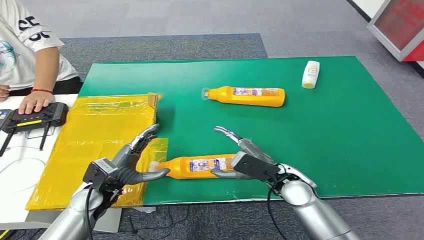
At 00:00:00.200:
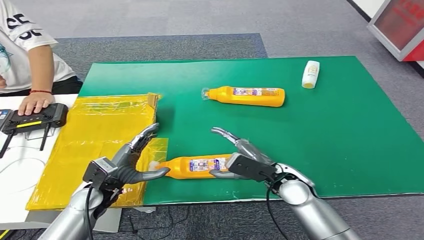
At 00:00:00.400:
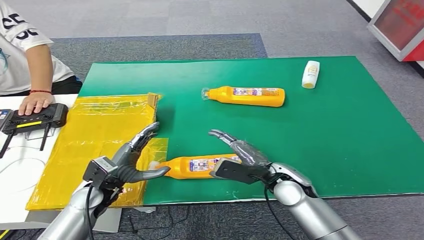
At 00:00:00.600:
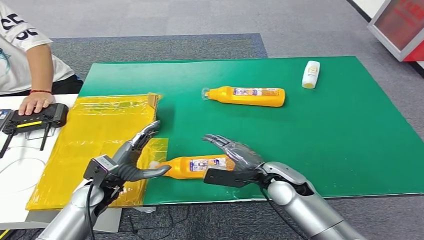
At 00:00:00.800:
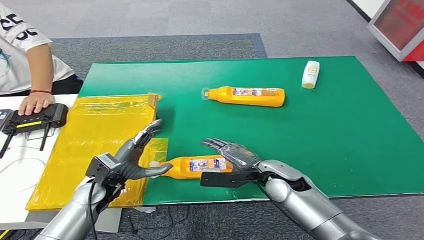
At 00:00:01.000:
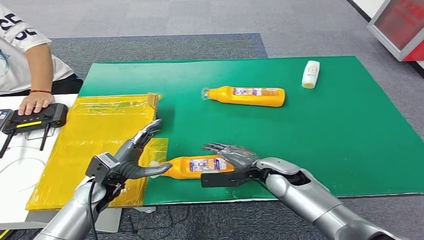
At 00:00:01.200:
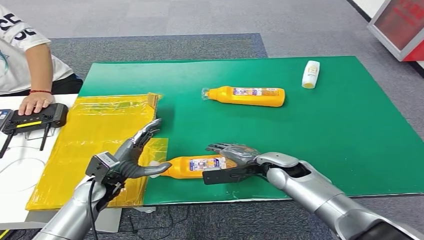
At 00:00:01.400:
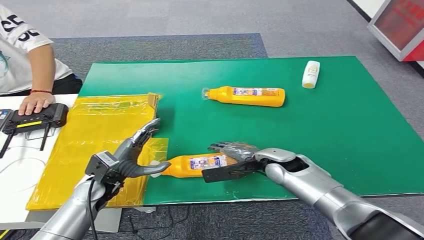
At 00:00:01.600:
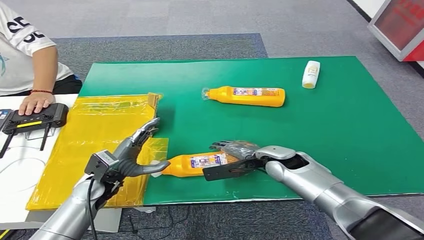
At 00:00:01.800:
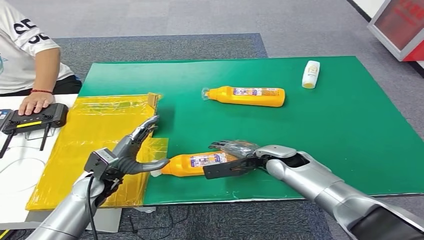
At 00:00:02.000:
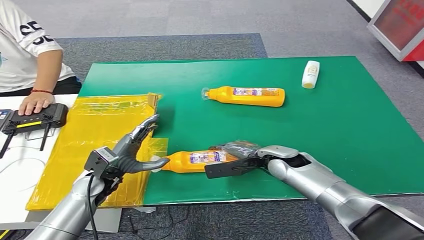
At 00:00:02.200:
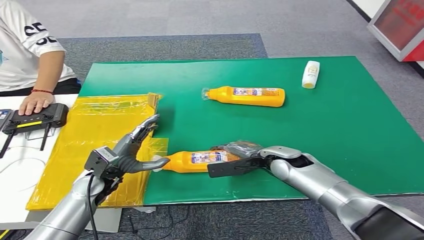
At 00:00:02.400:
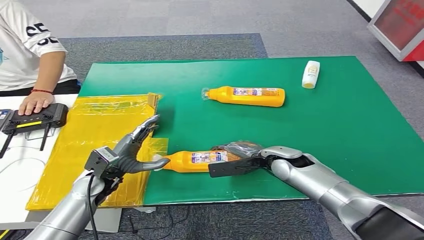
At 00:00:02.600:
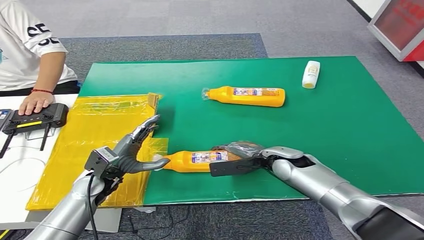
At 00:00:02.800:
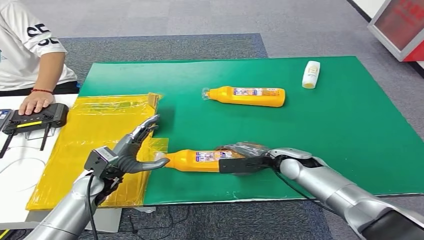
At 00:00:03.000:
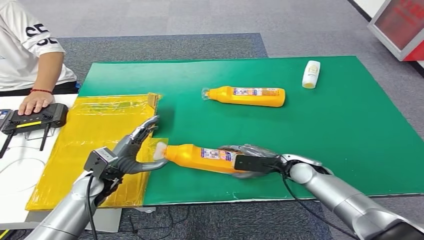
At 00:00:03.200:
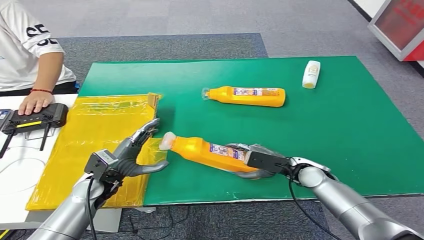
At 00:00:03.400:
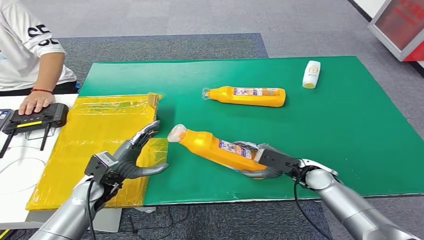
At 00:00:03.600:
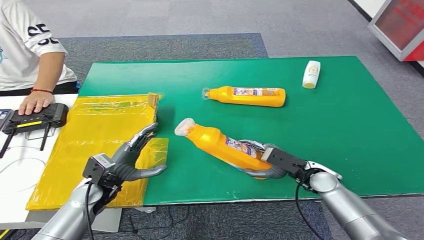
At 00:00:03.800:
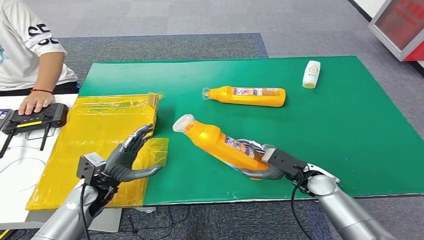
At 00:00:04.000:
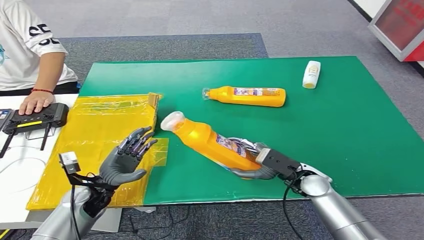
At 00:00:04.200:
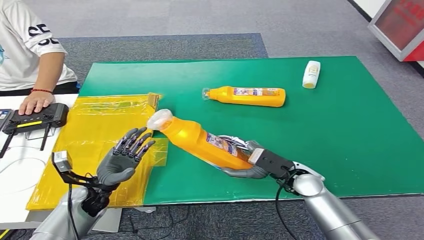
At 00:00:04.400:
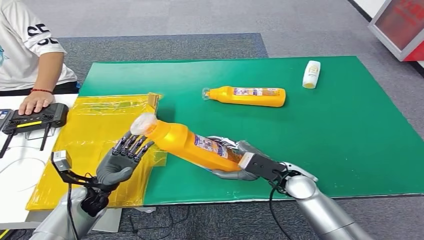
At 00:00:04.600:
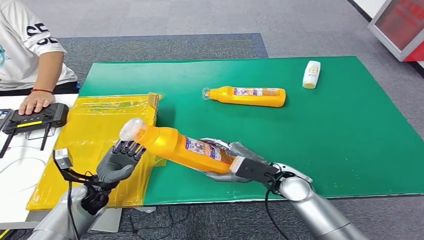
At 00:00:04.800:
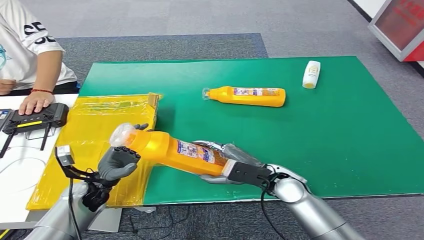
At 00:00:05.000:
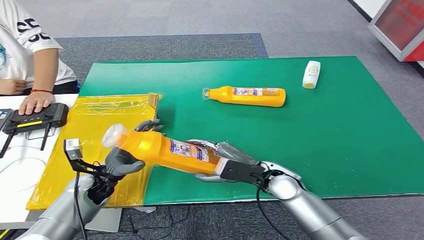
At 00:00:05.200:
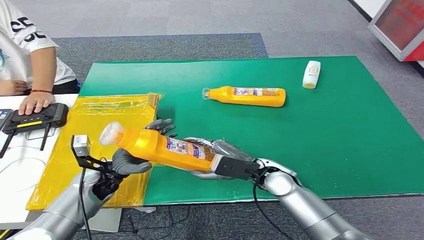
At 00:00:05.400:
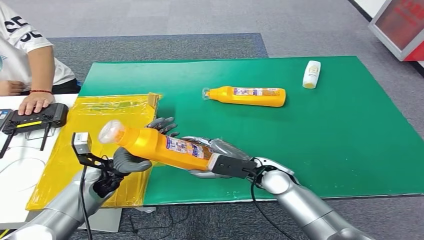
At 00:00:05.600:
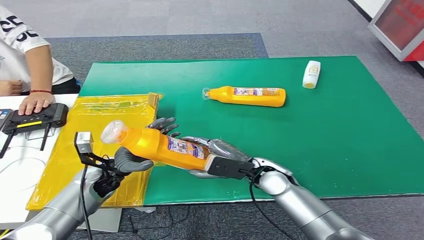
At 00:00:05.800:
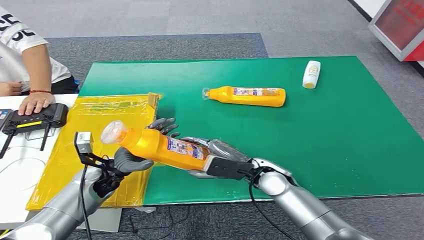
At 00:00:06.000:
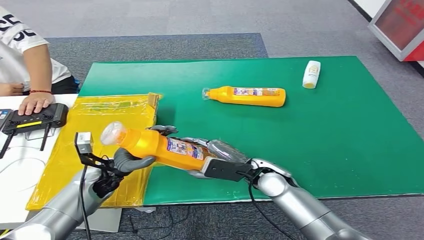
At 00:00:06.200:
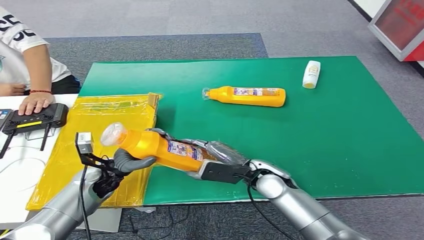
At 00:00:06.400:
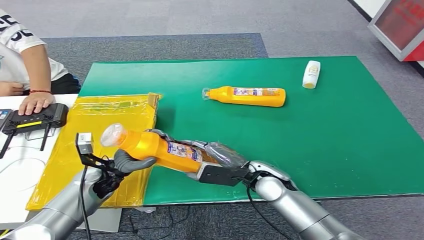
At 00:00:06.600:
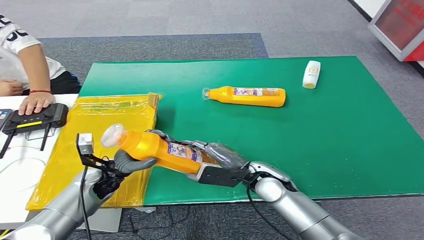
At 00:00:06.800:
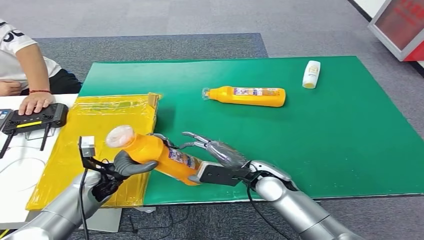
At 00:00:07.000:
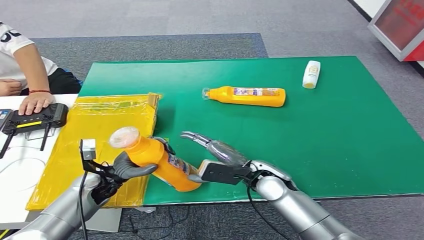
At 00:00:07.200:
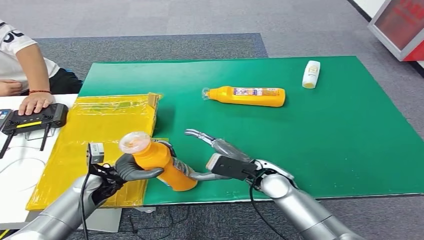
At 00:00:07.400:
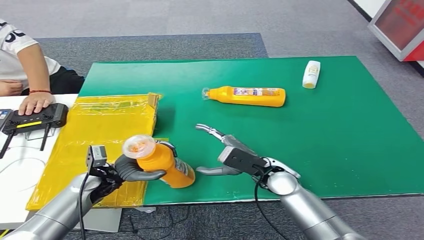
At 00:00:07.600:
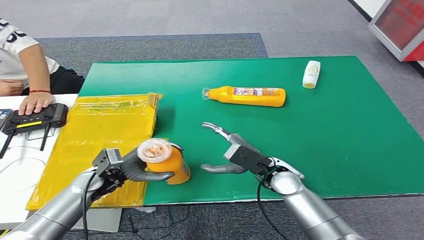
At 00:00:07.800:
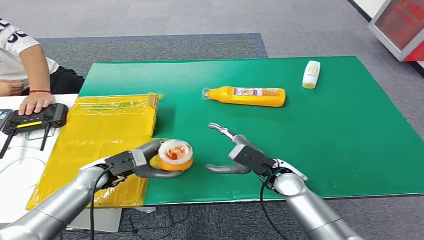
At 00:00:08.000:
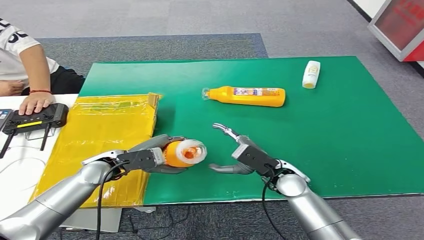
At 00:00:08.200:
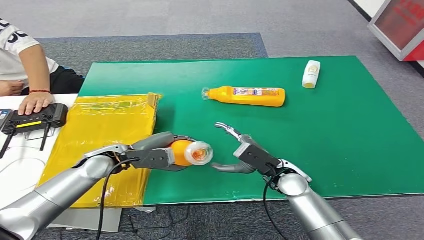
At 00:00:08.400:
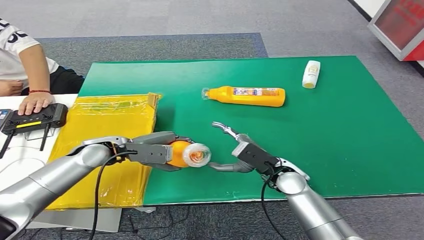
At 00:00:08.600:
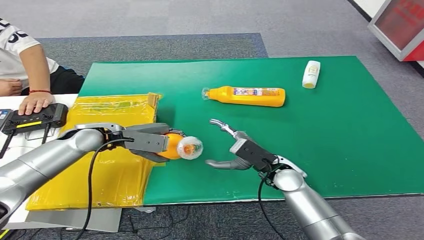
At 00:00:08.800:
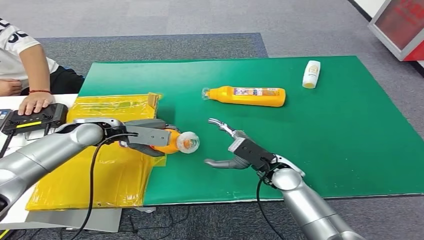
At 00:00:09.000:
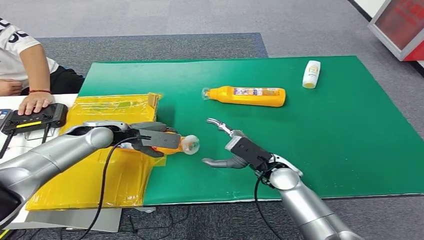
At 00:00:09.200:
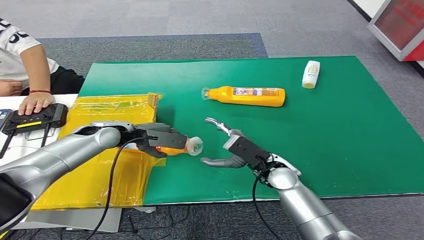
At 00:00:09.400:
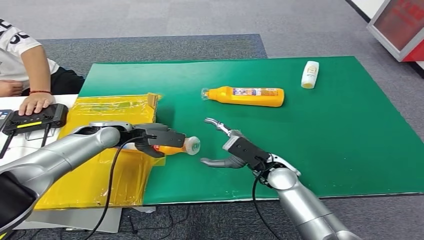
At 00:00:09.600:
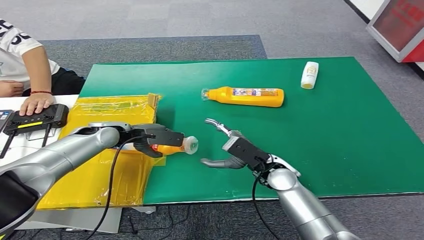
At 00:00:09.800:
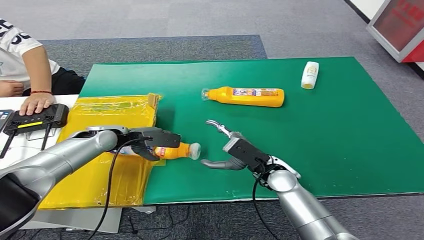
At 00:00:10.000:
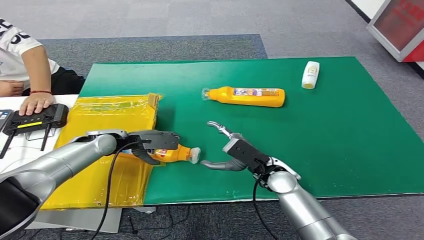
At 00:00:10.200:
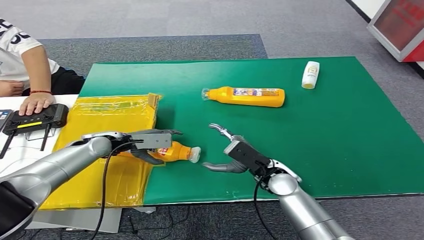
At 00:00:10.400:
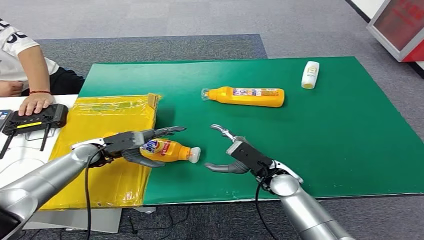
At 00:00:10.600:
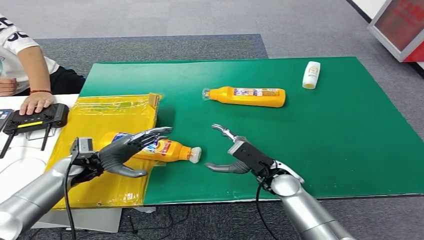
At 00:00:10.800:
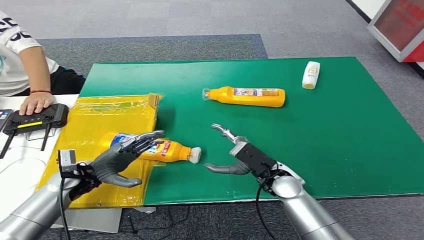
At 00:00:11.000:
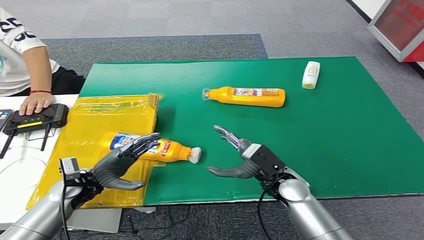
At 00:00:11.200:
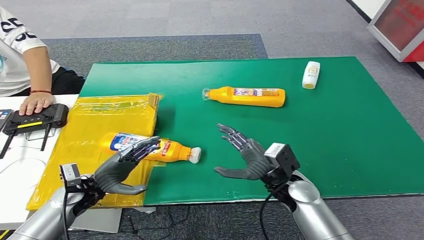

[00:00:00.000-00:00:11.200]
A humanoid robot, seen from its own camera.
Step, 00:00:00.000 to 00:00:03.600: Pick up the bottle from the table.
Step, 00:00:04.000 to 00:00:11.200: Turn the bottle to the front side.
00:00:01.600 to 00:00:03.200: The right hand moves to the right, about 5 cm.
00:00:03.200 to 00:00:04.800: The right hand goes about 5 cm to the left.
00:00:04.800 to 00:00:06.400: The left hand moves approximately 5 cm.
00:00:06.400 to 00:00:08.000: The left hand moves upward, about 5 cm.
00:00:09.600 to 00:00:11.200: The left hand travels backward and downward by some 20 cm.
